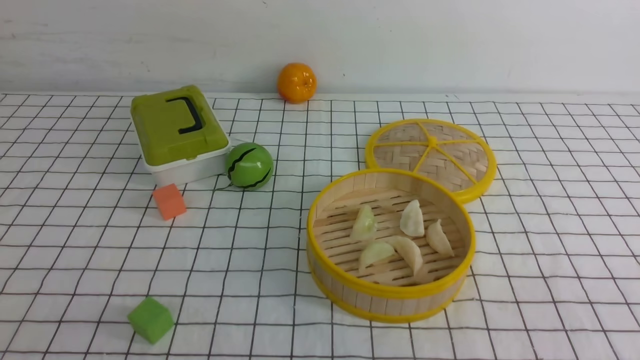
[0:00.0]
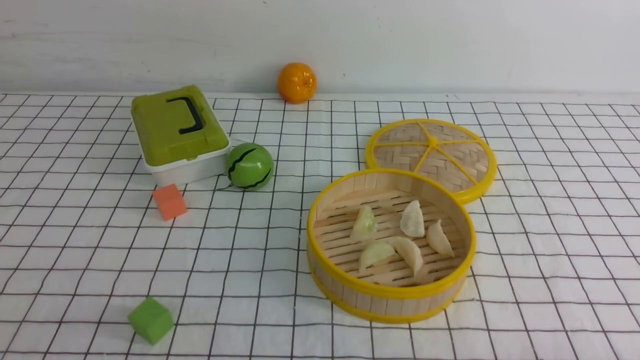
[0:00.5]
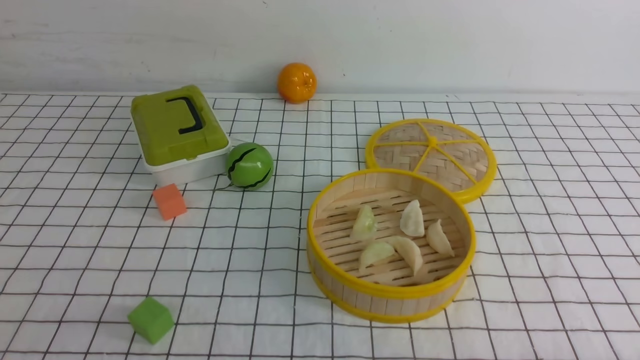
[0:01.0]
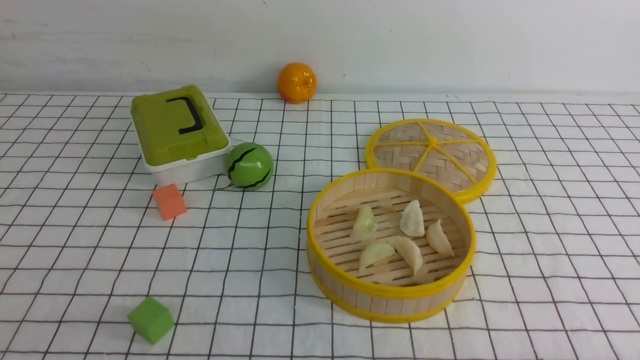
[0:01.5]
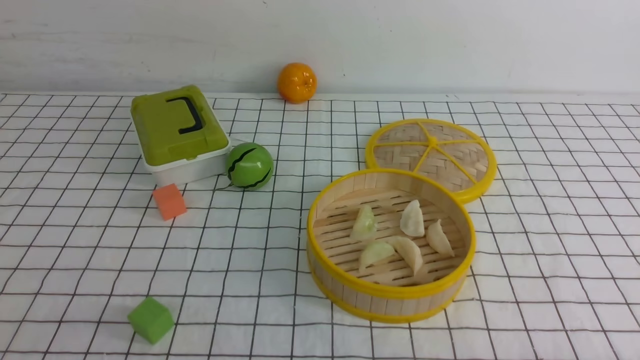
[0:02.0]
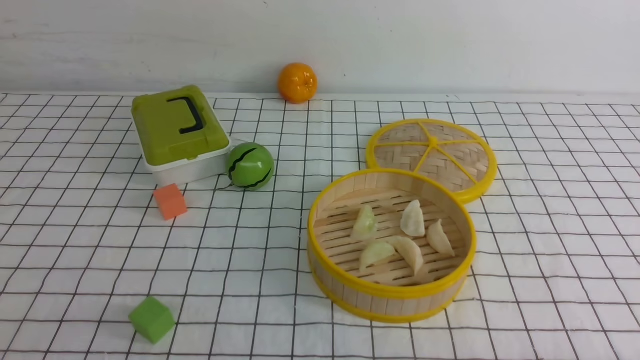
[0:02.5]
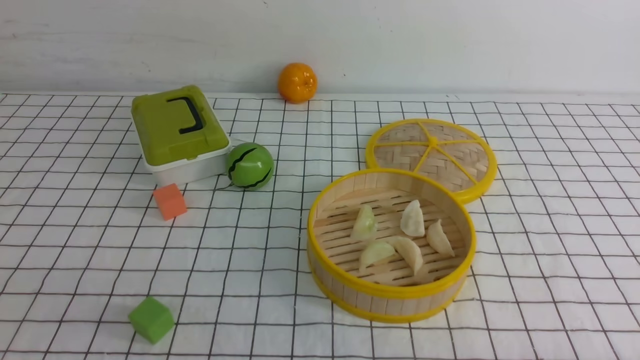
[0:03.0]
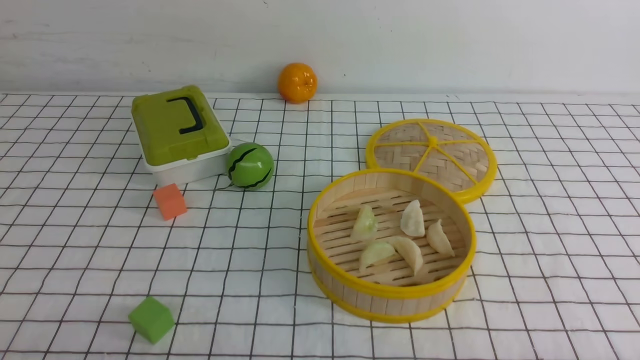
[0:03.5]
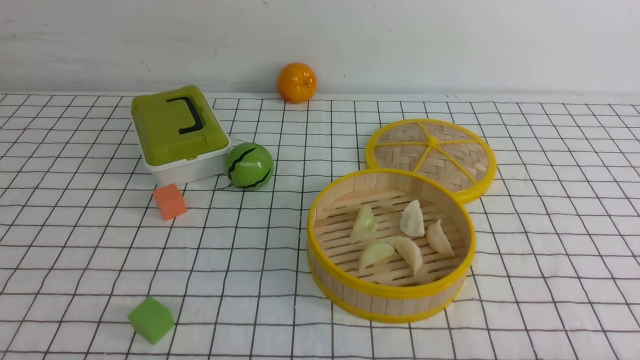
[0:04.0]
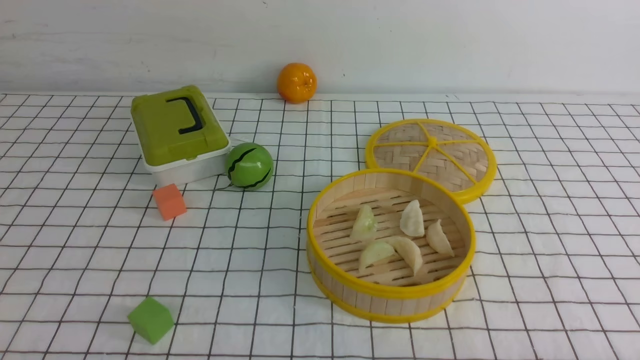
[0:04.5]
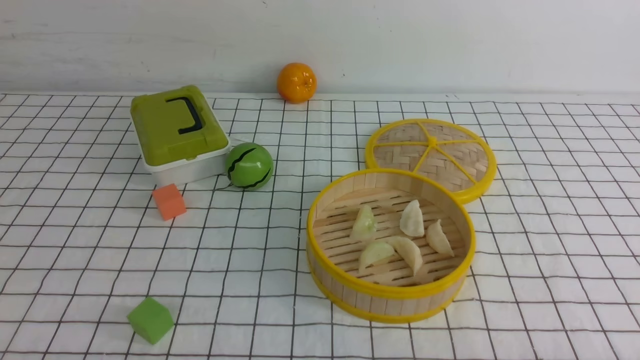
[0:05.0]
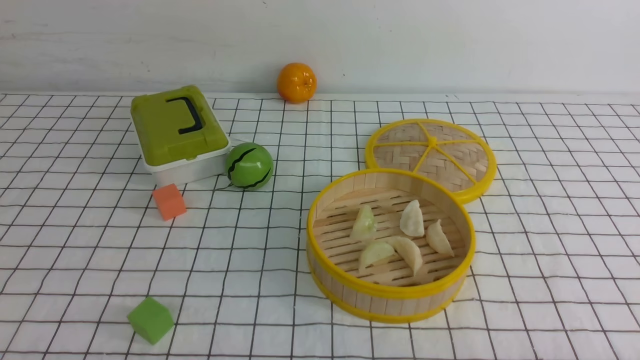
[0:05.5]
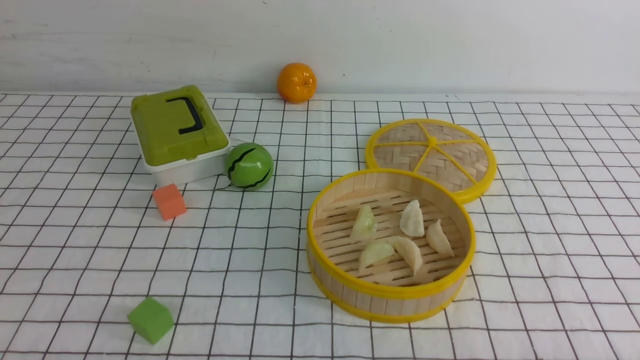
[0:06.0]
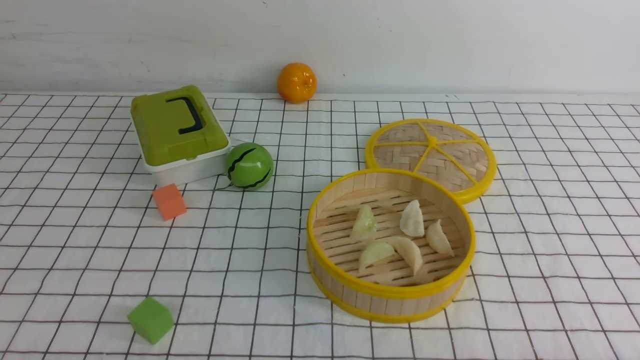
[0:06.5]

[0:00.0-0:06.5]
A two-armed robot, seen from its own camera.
Task of the whole recording: put the dumplings into the steamer on the table with the white tablecloth.
0:04.5 to 0:06.5: Neither gripper changes place.

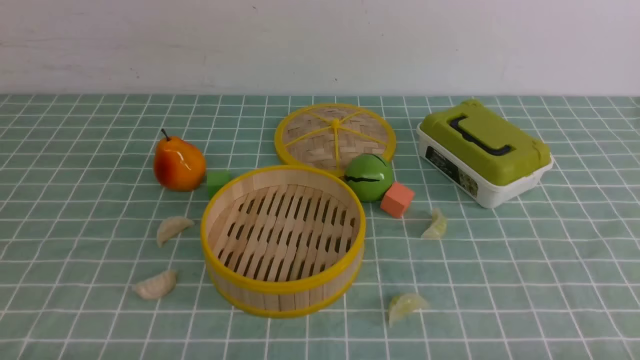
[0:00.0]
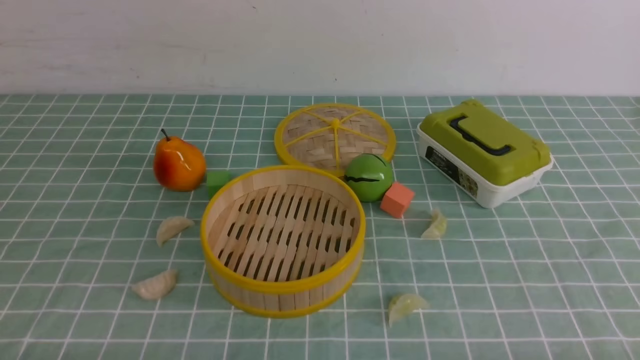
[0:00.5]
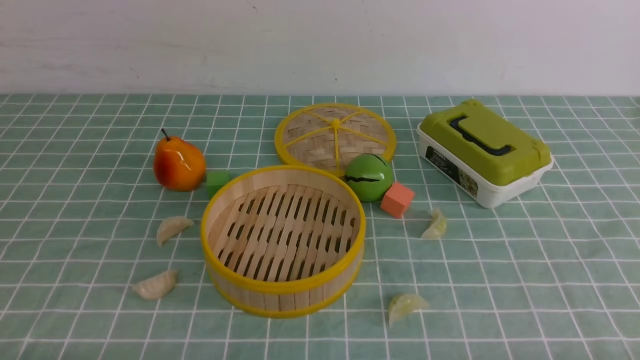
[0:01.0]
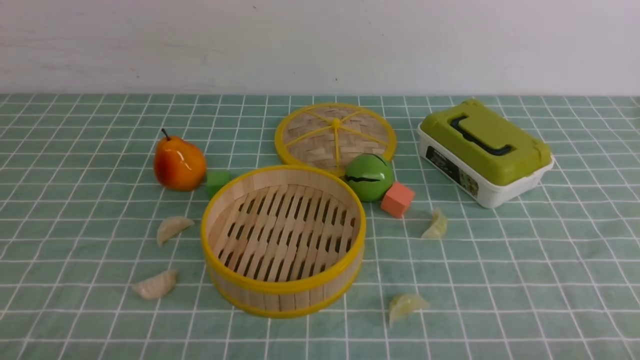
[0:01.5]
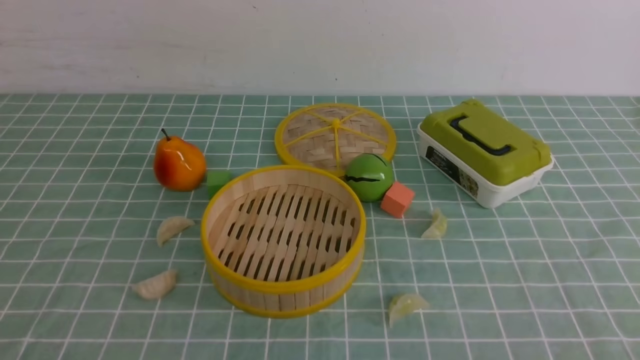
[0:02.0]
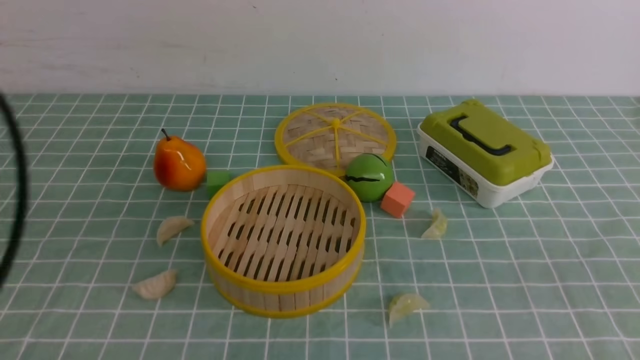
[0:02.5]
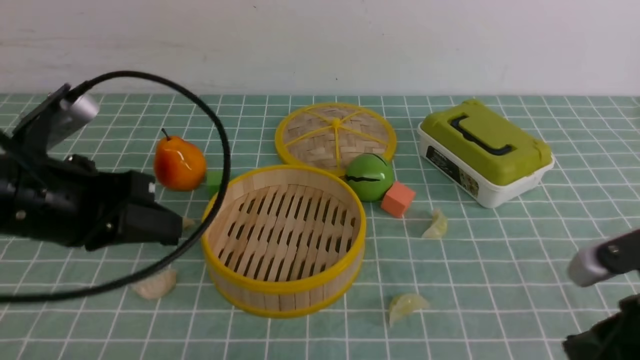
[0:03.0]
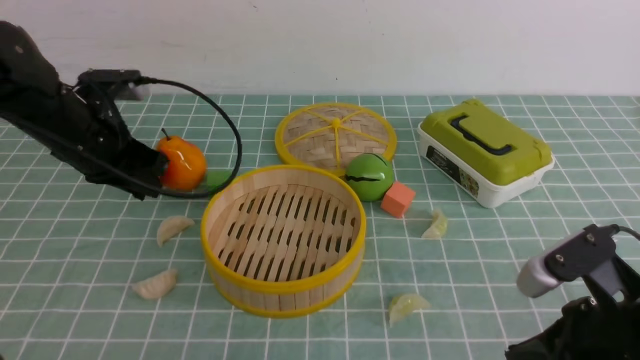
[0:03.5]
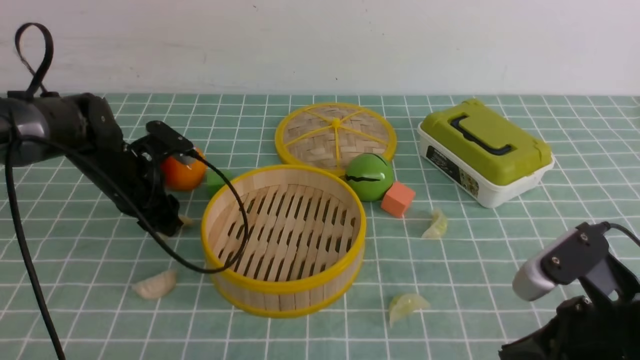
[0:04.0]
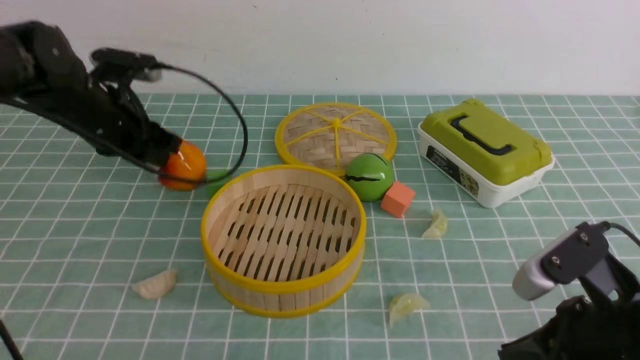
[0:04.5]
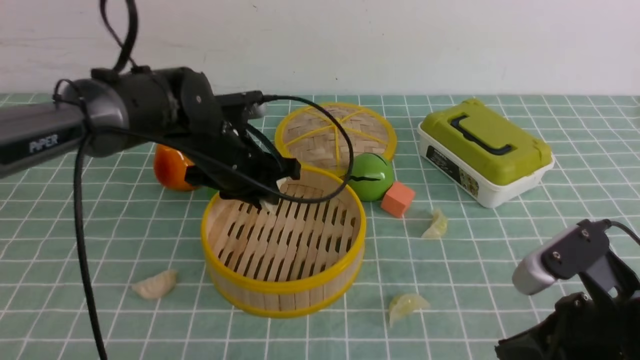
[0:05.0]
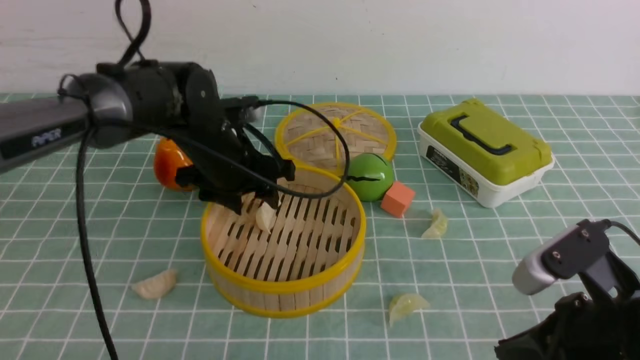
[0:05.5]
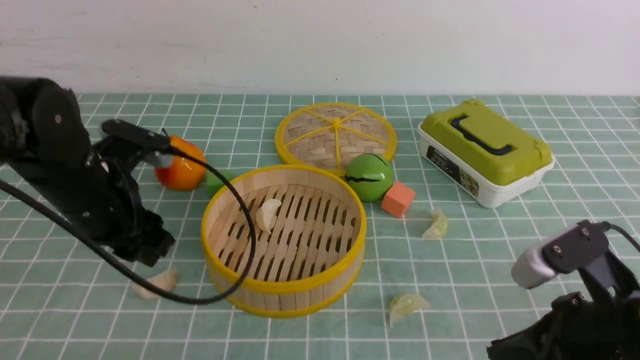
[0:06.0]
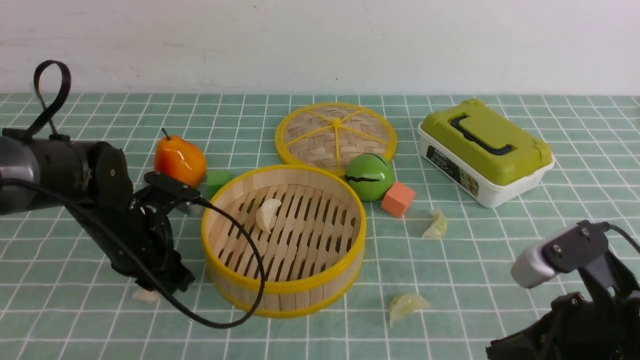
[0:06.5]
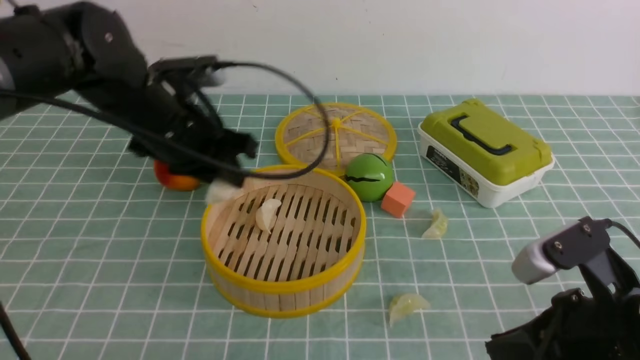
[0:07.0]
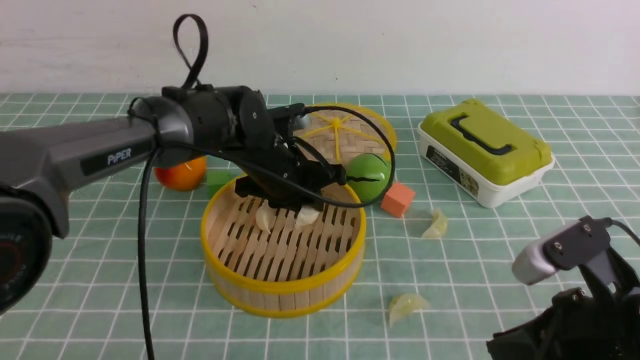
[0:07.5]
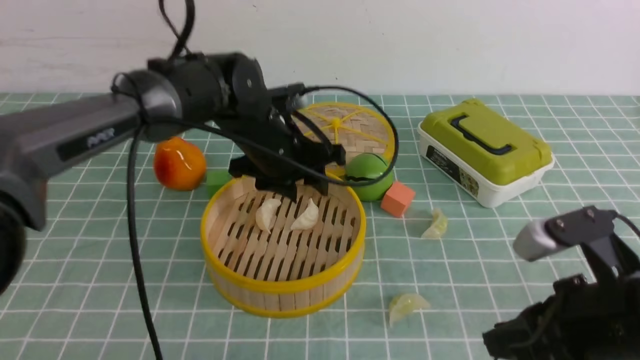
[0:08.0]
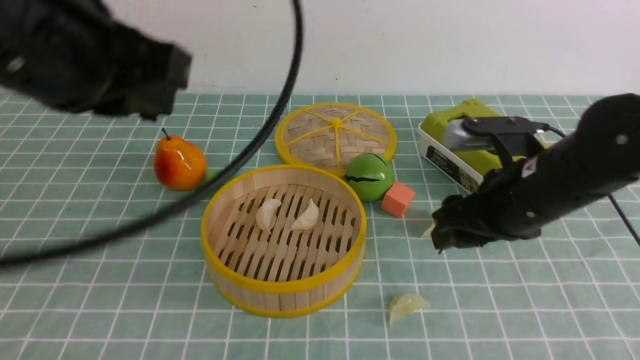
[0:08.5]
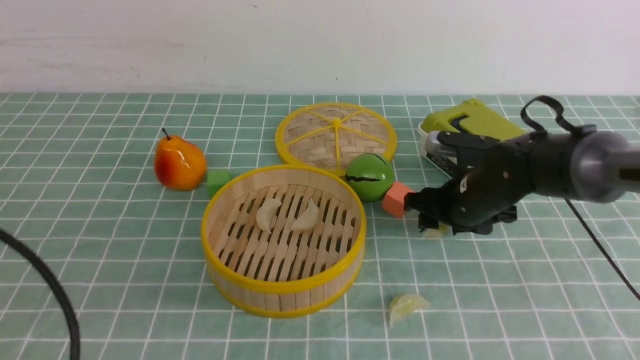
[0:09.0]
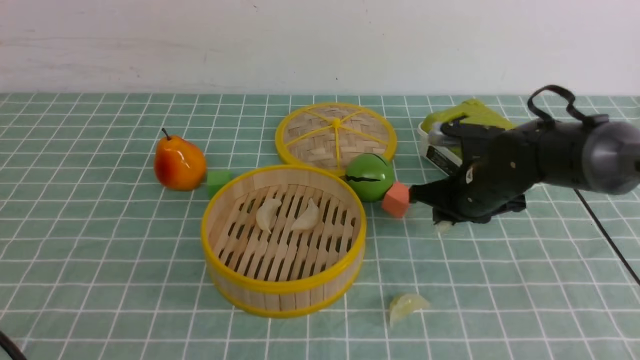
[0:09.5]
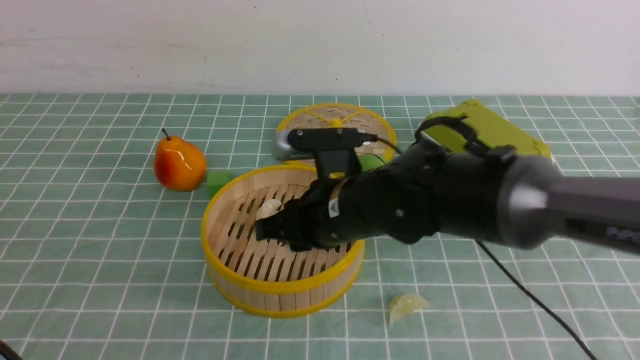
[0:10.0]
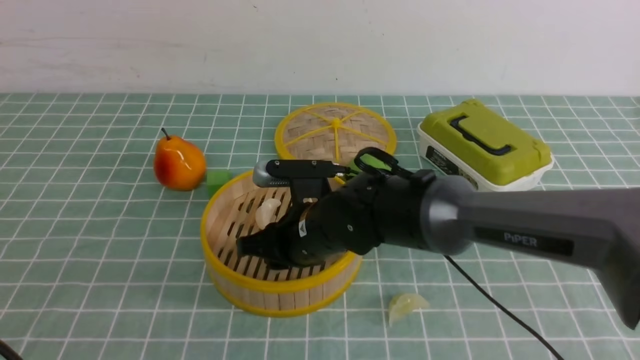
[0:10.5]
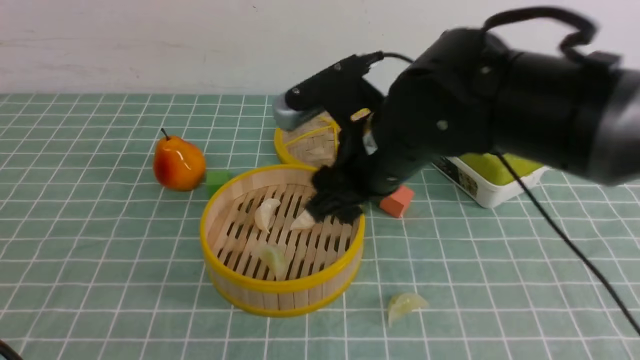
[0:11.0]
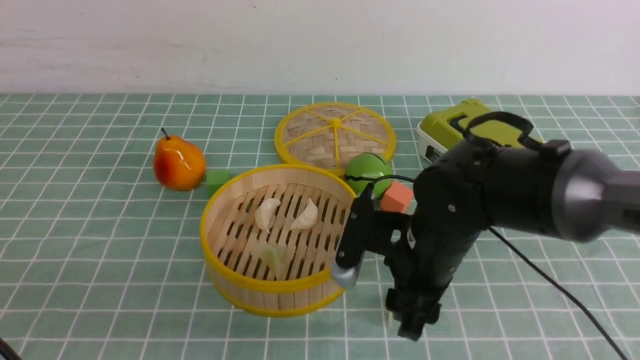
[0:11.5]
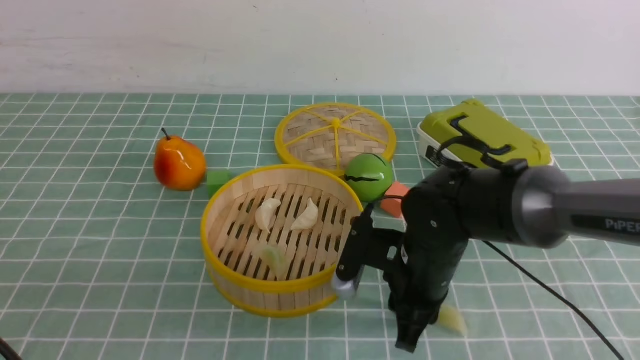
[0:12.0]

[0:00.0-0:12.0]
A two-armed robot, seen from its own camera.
Task of the whole recording: put the dumplings into the steamer on the table with the blue tablecloth.
Step, 0:00.0 to 0:04.0: use the left arm to grab a dumpling.
Step, 0:04.5 to 0:05.5: use the left arm to put the dumpling into the steamer.
Step, 0:06.0 to 0:06.5: use the left arm to grab a dumpling.
Step, 0:07.0 to 0:07.5: use the left arm to put the dumpling into the steamer.
Step, 0:08.5 to 0:09.0: use the right arm to grab a dumpling.
Step, 0:09.5 to 0:10.5: use the right arm to put the dumpling into the steamer.
0:02.0 to 0:04.0: The left gripper goes some 40 cm forward, and opens up; the right gripper travels forward and to the left by roughly 15 cm.
0:04.0 to 0:06.0: The left gripper heads backward and upward, covering about 10 cm, and moves approximately 10 cm to the right and comes back.
0:06.0 to 0:08.0: The left gripper shifts roughly 15 cm to the right and forward, and closes, then reopens.
0:08.0 to 0:10.0: The left gripper shifts roughly 40 cm backward and to the left, and closes up; the right gripper is displaced to the left and forward by some 25 cm, and opens, then closes again.
0:10.0 to 0:12.0: The right gripper heads to the right, covering about 5 cm, and opens, then closes once more.

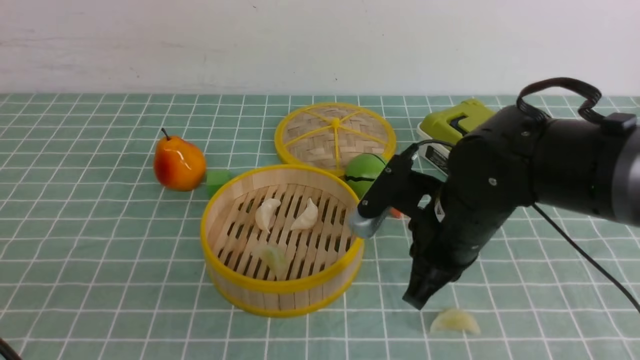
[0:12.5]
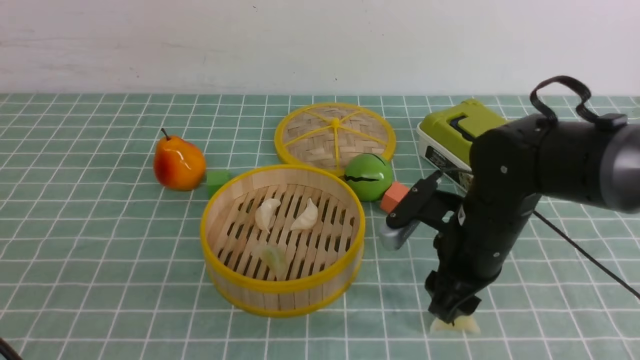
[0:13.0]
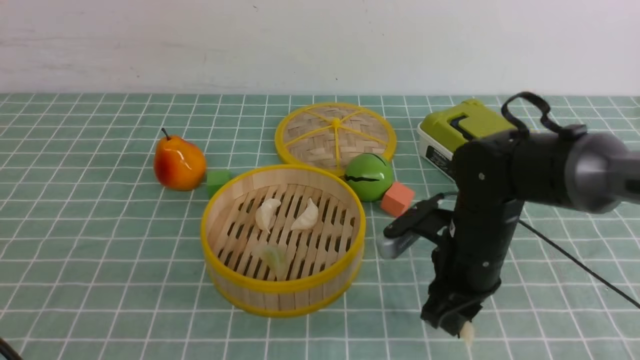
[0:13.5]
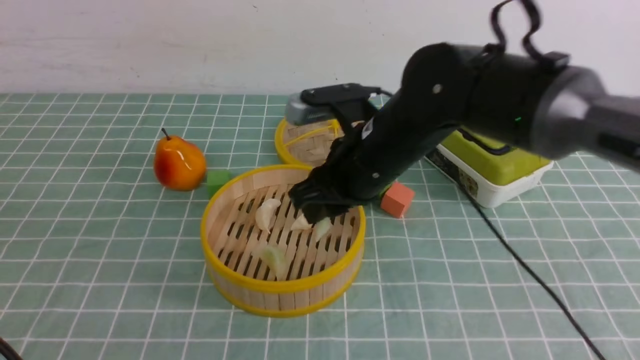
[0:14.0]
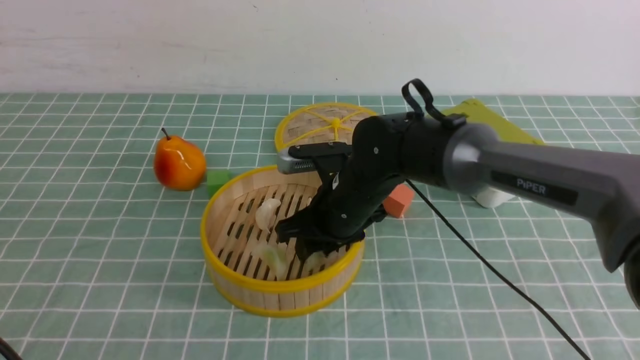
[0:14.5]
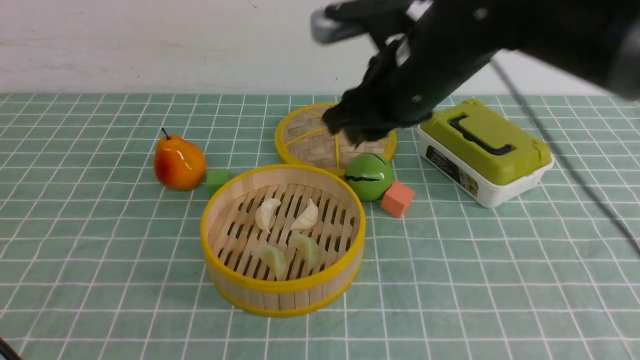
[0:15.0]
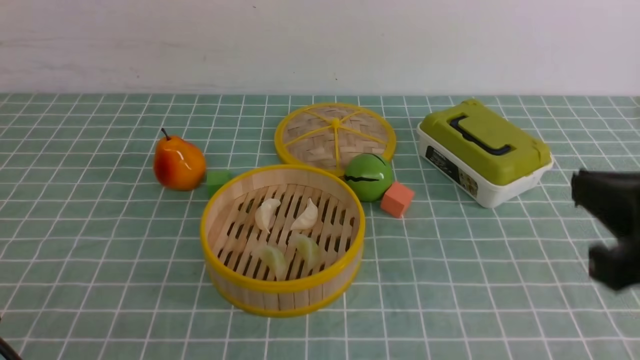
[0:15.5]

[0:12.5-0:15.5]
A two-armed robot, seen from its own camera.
Task of the whole recording: put the dumplings into the steamer on the table with the blue tablecloth.
Step, 0:13.5 to 0:14.5: use the right arm to put the dumpling into the steamer.
0:12.5 to 0:14.0: The right gripper heads to the left and forward, covering some 10 cm.
0:14.0 to 0:15.5: The right gripper shifts roughly 30 cm backward, to the right and upward, and closes its fingers.
